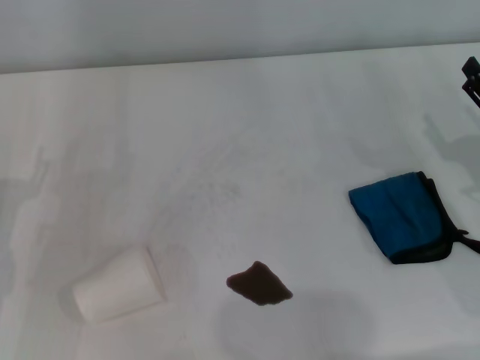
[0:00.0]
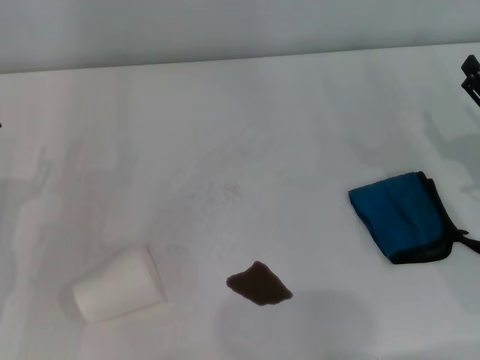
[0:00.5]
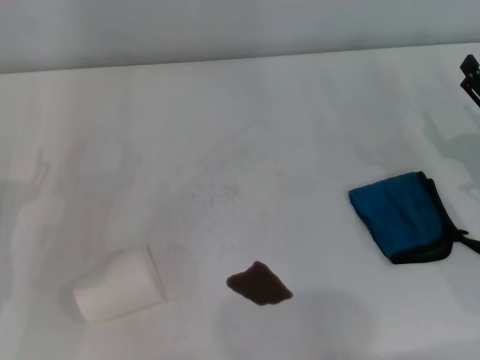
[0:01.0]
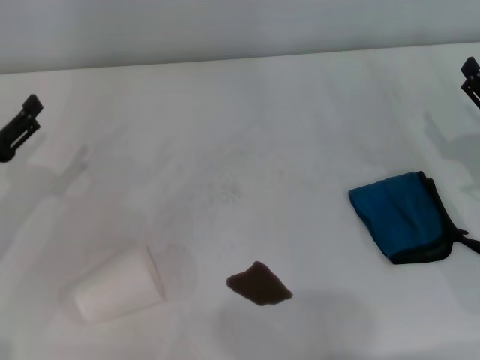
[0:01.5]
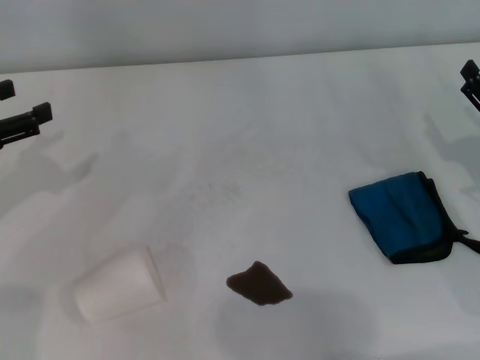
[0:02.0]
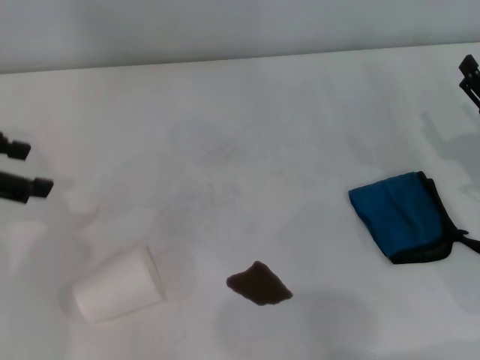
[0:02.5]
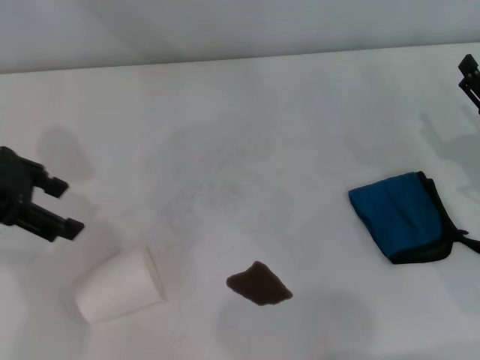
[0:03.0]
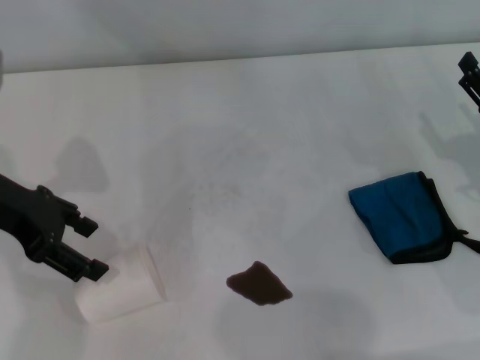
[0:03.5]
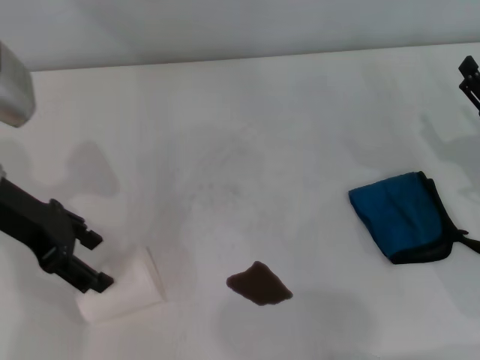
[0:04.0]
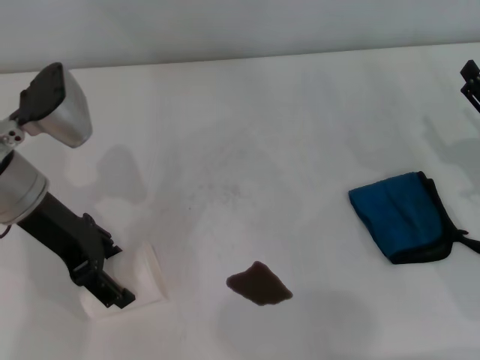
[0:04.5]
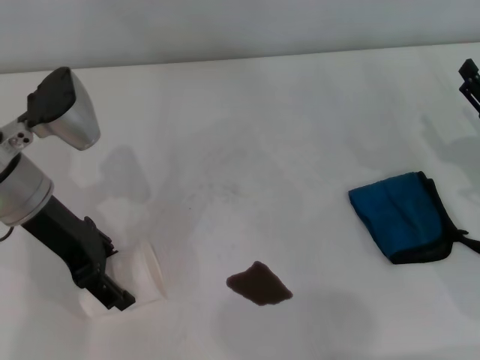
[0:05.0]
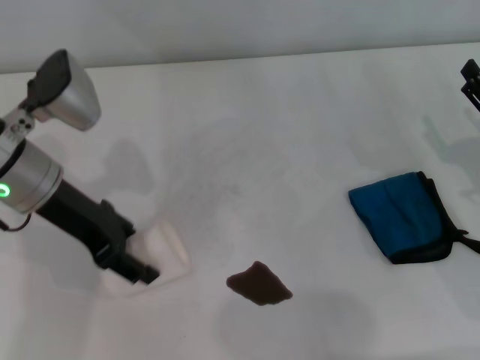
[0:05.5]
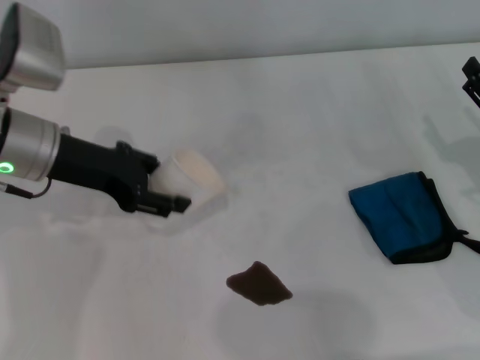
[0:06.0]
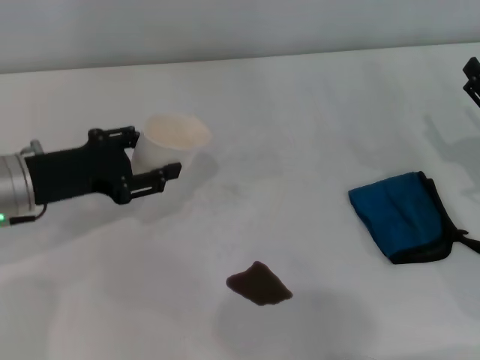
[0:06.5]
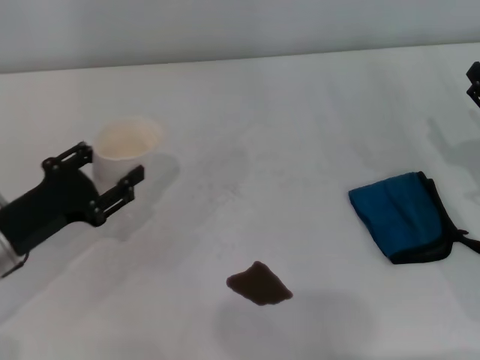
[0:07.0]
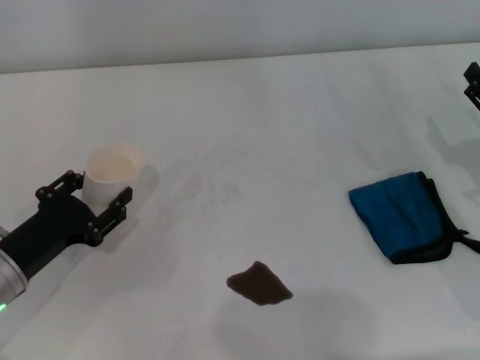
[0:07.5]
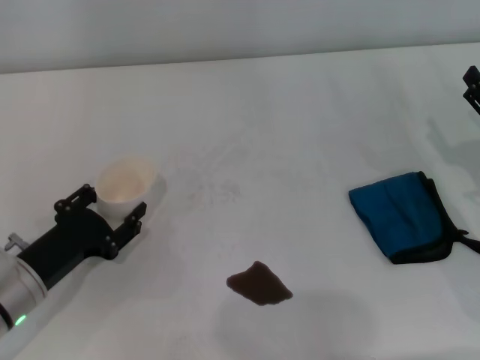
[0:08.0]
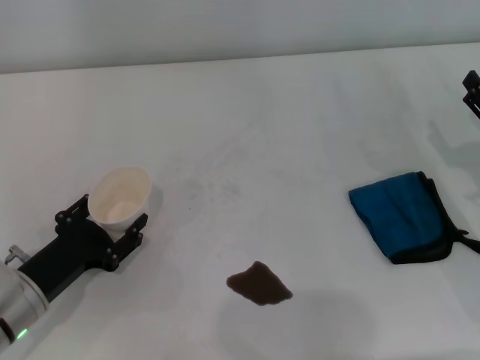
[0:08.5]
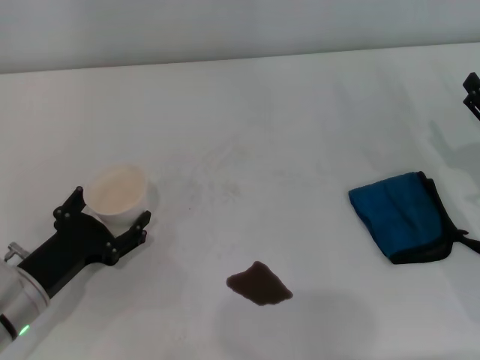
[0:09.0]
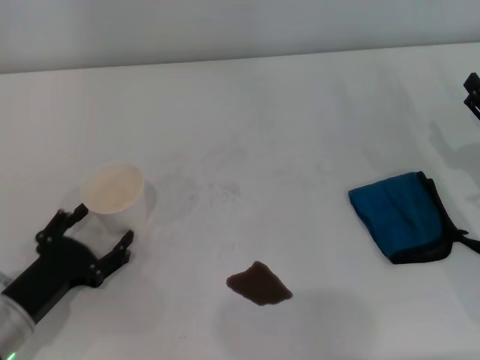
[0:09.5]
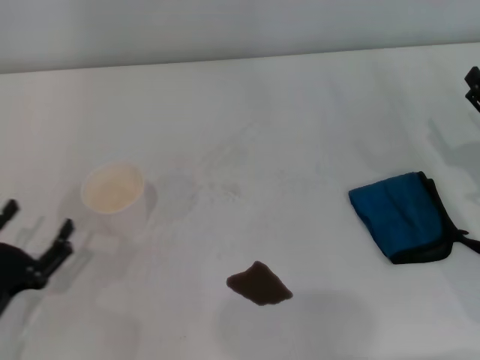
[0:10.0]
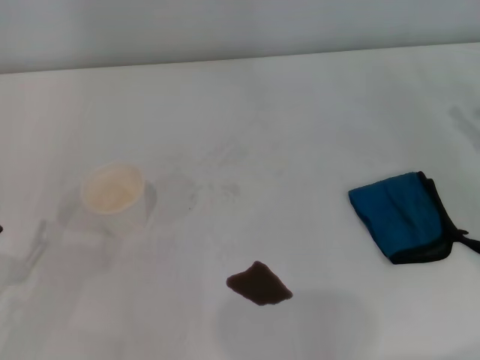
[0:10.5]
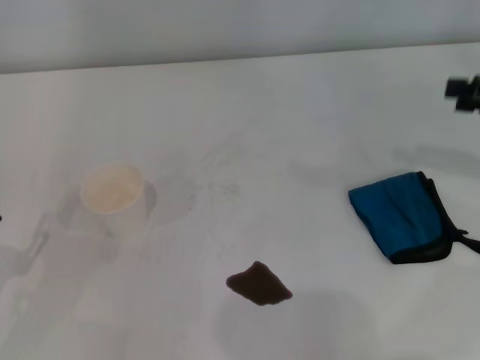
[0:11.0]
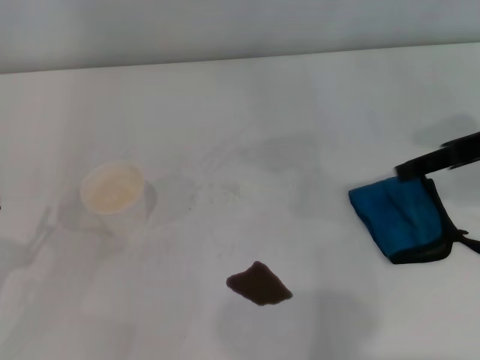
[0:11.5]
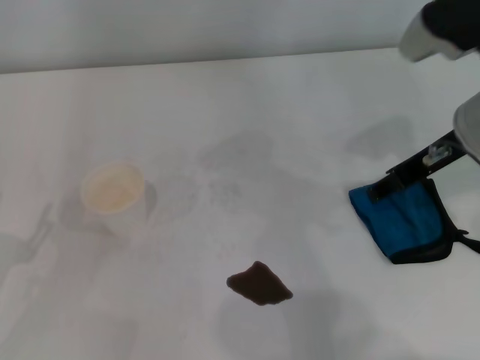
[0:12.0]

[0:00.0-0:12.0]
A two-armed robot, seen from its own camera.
Step, 0:00.0 to 0:05.0: Grasp the paper cup with the left gripper.
Step, 0:05.5 to 0:09.0: Stand the paper cup upright with the left gripper.
0:00.0 to 0:02.0: The left gripper is displaced upward, forward and to the left by about 15 cm.
0:02.0 to 0:04.0: The left gripper goes roughly 10 cm to the right.
0:04.0 to 0:06.0: The left gripper closes.
0:06.0 to 0:08.0: The left gripper goes approximately 20 cm downward and backward.
0:08.0 to 0:10.0: The left gripper is displaced backward by approximately 5 cm, and opens its fingers.
0:10.0 to 0:12.0: The right gripper heads upward, to the left and forward, covering roughly 20 cm.

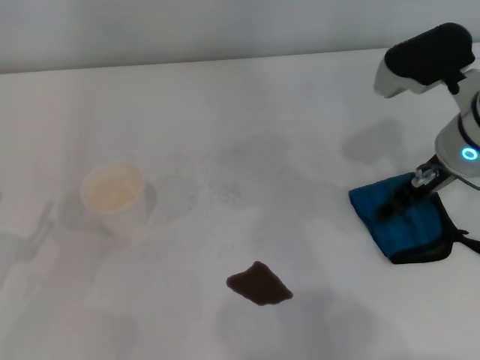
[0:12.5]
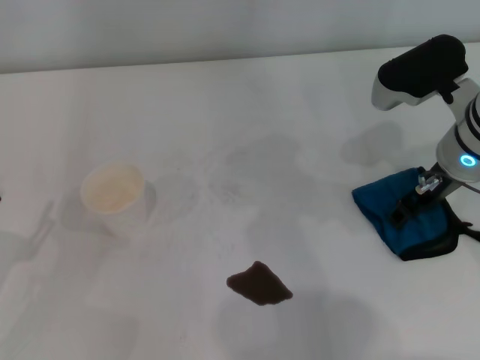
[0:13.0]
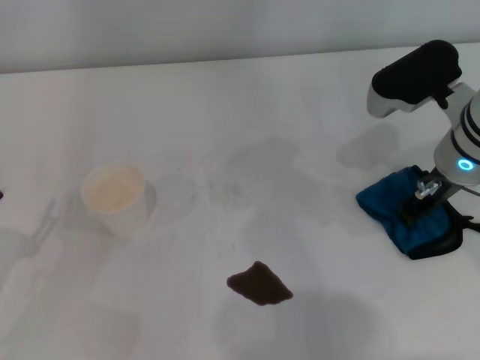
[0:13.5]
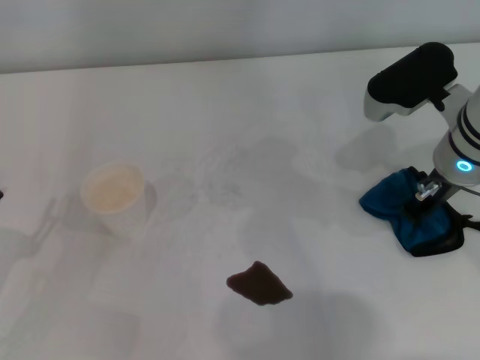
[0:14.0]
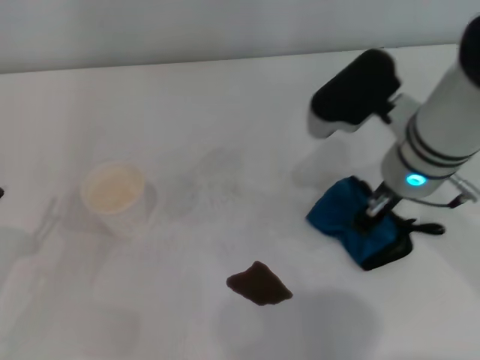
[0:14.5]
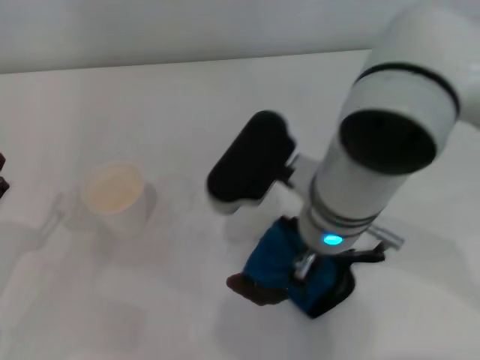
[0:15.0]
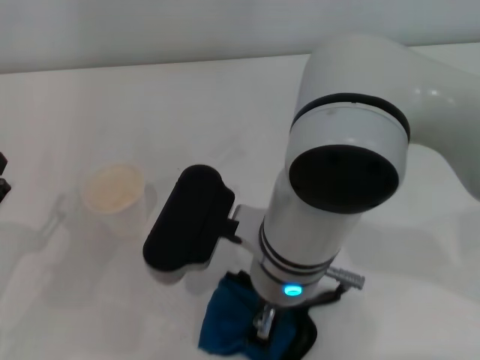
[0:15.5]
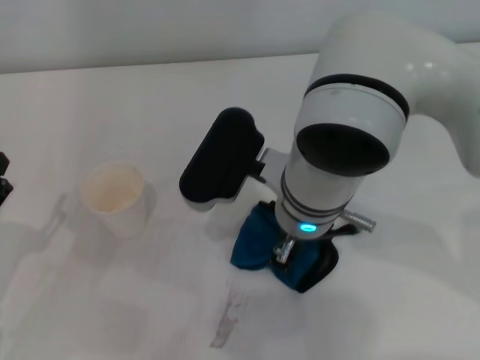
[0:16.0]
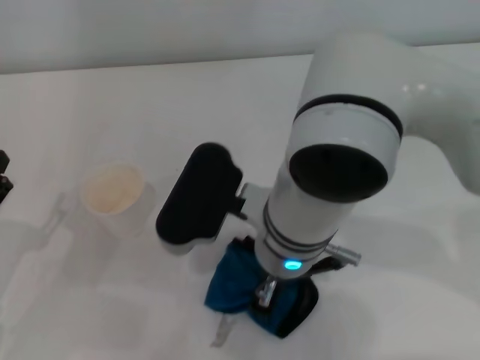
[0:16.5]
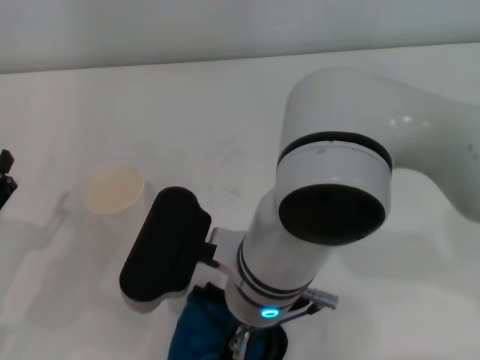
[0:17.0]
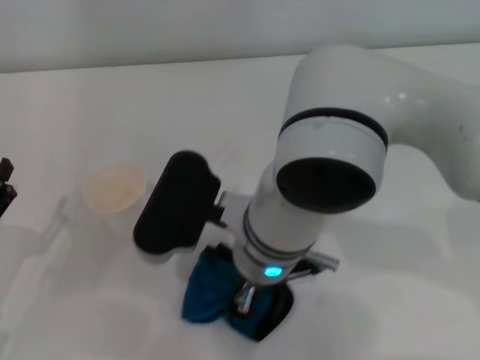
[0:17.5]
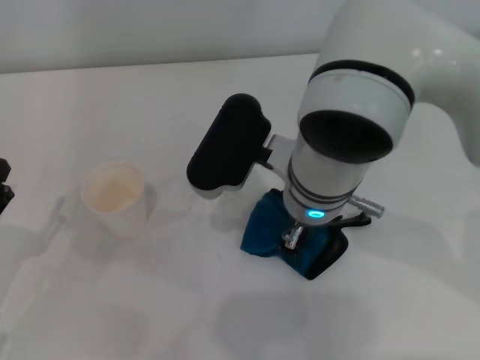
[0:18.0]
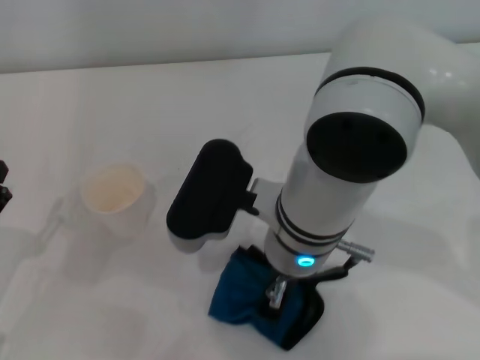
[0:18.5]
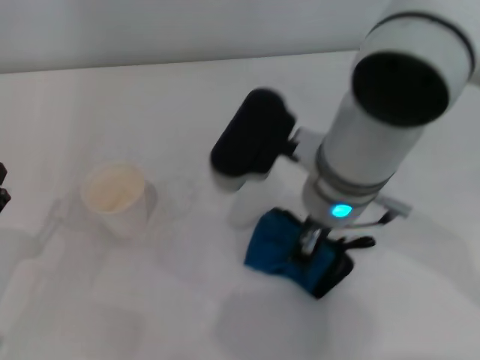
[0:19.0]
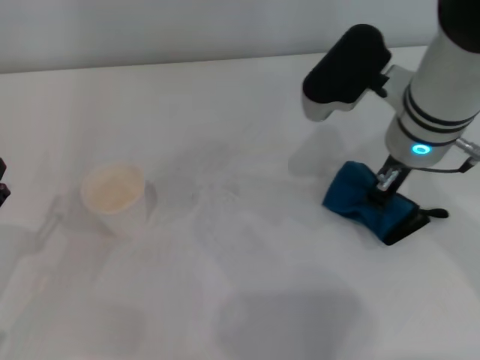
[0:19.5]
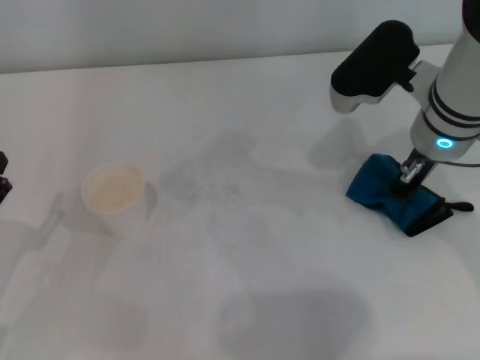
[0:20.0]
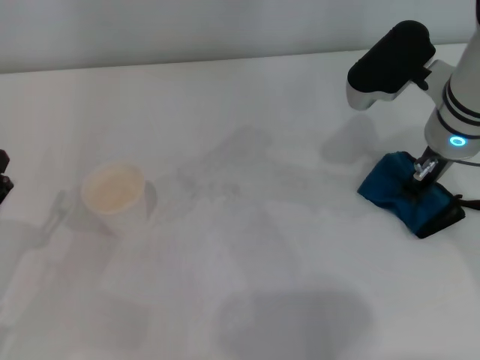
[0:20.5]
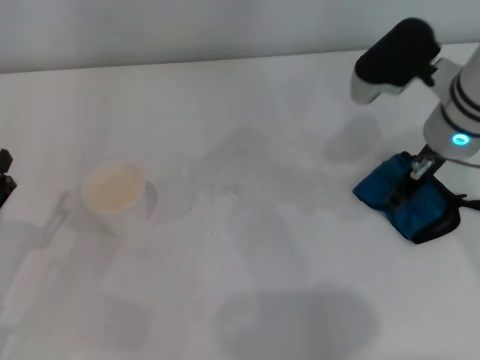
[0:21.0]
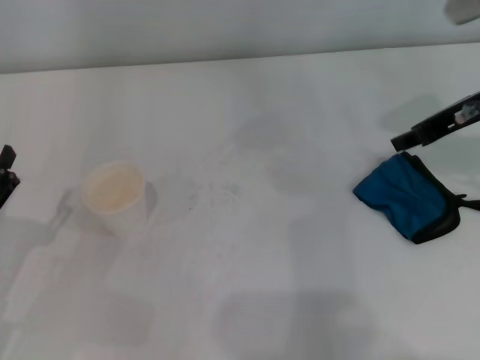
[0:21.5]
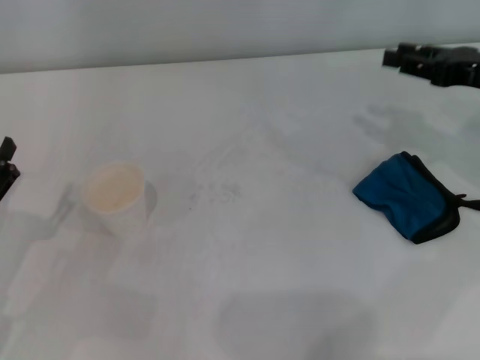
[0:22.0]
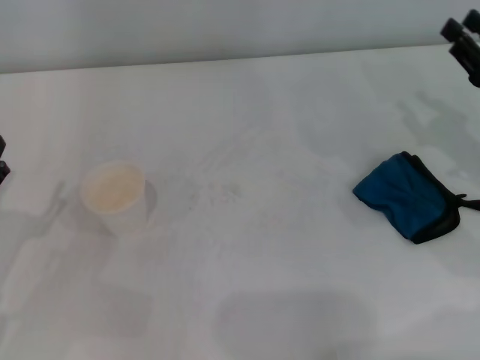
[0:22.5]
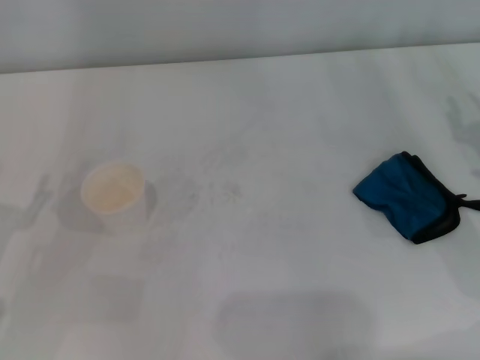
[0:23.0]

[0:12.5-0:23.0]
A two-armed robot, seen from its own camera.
Step, 0:14.0 to 0:20.0: Wipe the stains off the table with the right gripper.
0:12.5 to 0:14.5: The right gripper travels to the left by some 5 cm, and closes its fingers.
0:14.5 to 0:16.5: The right gripper travels to the left and backward by roughly 15 cm.
0:16.5 to 0:19.0: The right gripper ends up roughly 5 cm from where it was.
0:19.0 to 0:21.0: The right gripper travels to the right and forward by about 15 cm, and opens its fingers.
0:21.0 to 0:23.0: The right gripper heads to the right, backward and downward, covering roughly 20 cm.
